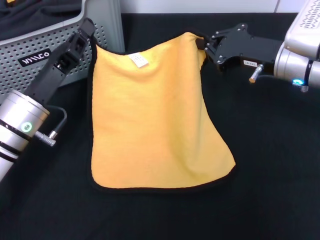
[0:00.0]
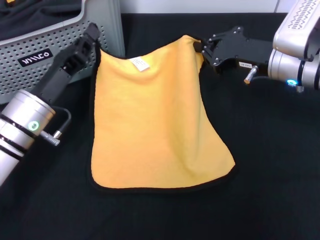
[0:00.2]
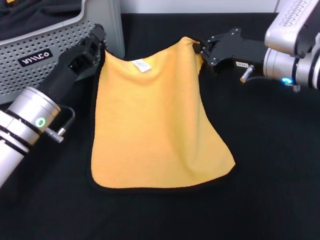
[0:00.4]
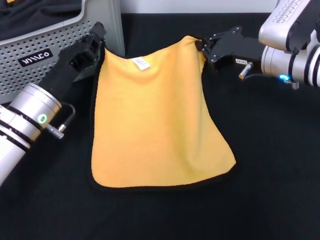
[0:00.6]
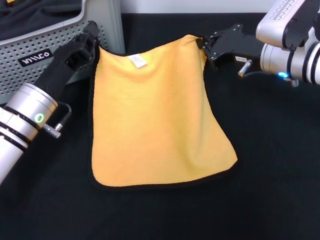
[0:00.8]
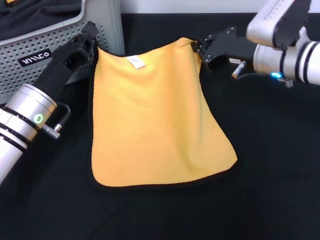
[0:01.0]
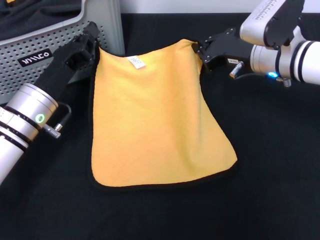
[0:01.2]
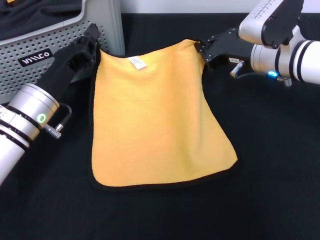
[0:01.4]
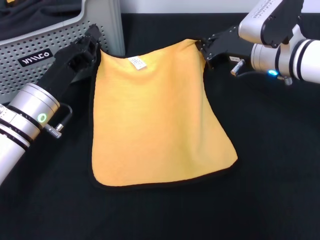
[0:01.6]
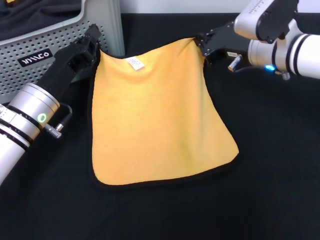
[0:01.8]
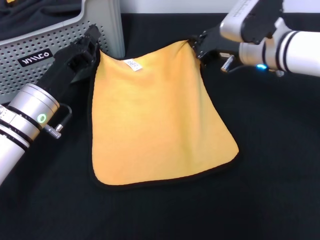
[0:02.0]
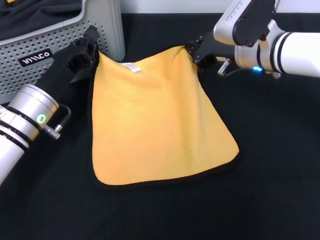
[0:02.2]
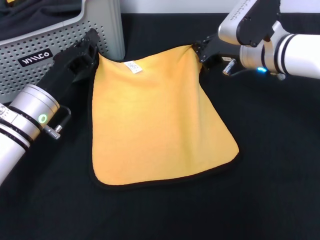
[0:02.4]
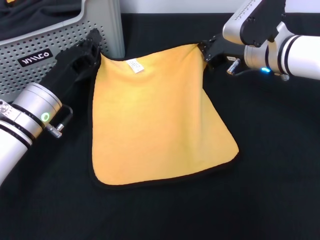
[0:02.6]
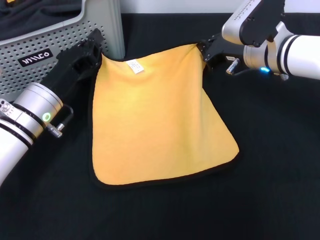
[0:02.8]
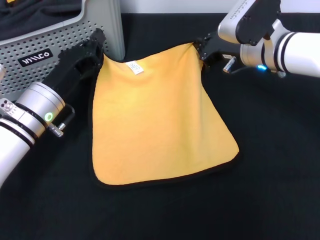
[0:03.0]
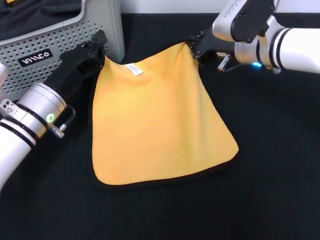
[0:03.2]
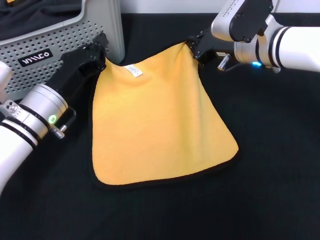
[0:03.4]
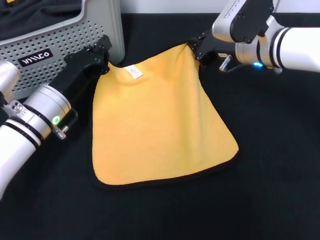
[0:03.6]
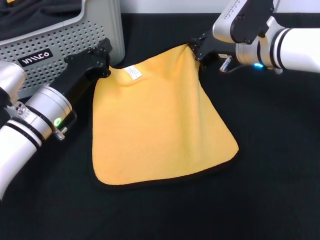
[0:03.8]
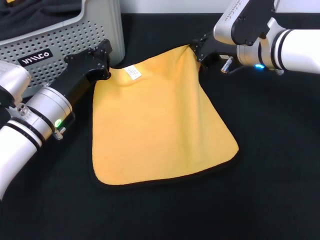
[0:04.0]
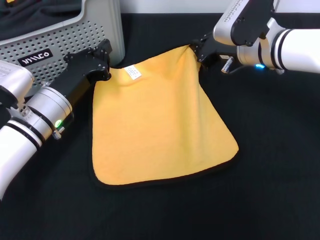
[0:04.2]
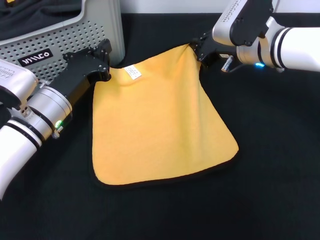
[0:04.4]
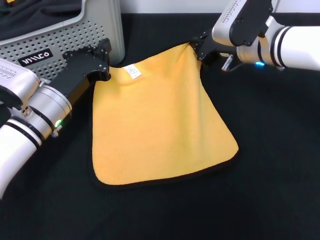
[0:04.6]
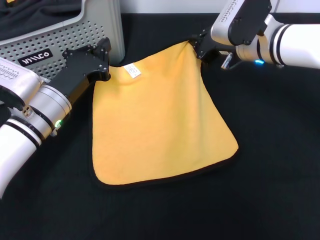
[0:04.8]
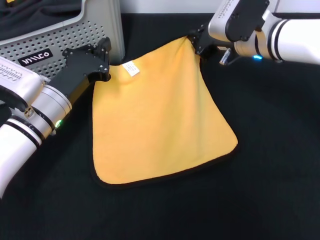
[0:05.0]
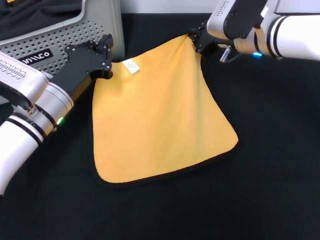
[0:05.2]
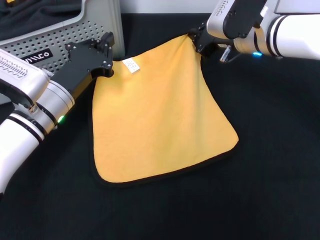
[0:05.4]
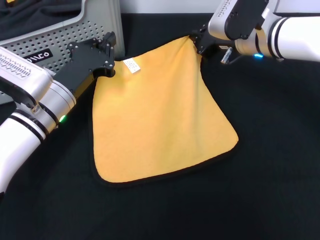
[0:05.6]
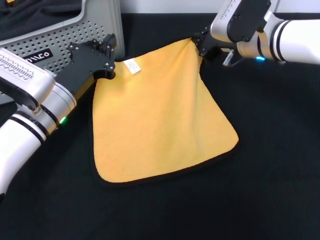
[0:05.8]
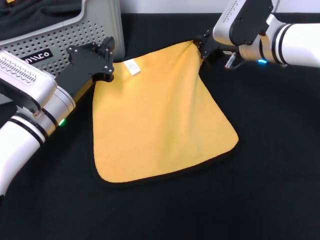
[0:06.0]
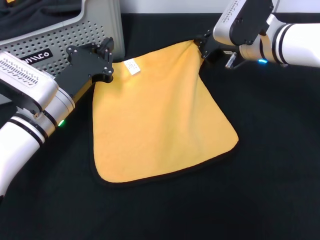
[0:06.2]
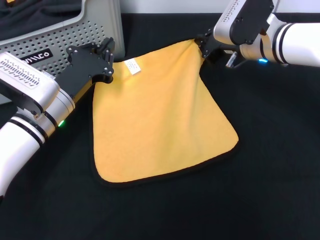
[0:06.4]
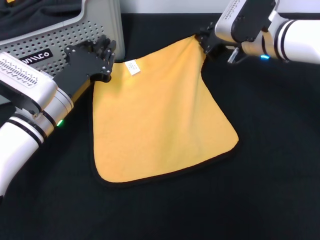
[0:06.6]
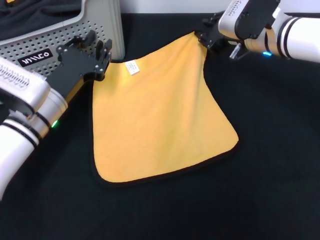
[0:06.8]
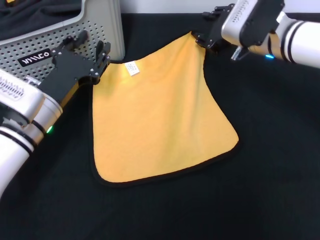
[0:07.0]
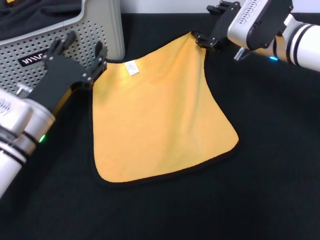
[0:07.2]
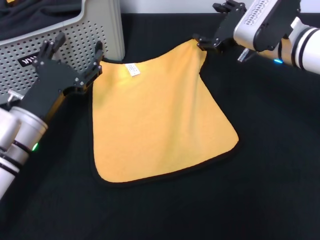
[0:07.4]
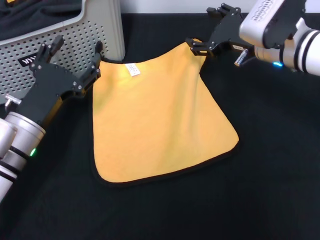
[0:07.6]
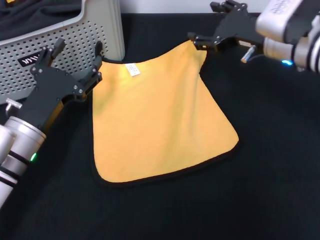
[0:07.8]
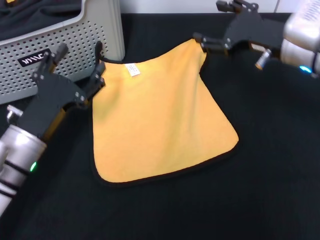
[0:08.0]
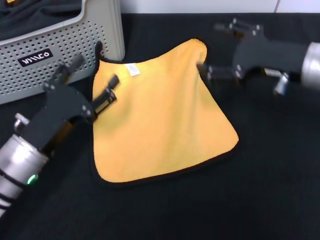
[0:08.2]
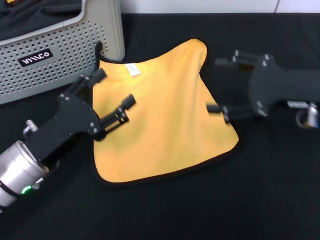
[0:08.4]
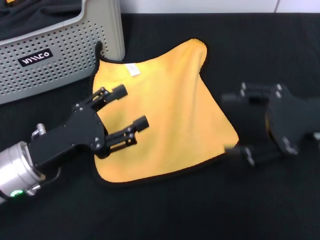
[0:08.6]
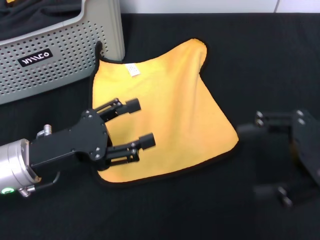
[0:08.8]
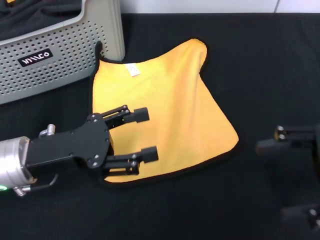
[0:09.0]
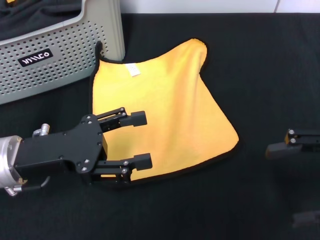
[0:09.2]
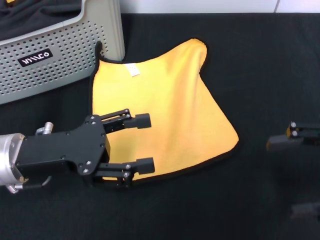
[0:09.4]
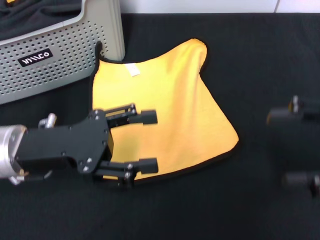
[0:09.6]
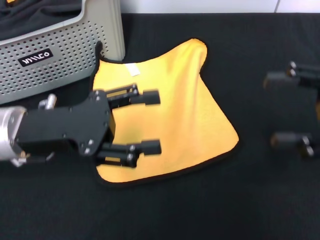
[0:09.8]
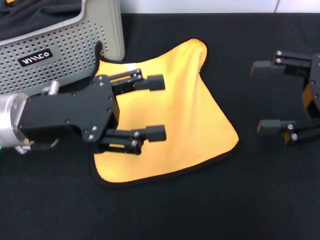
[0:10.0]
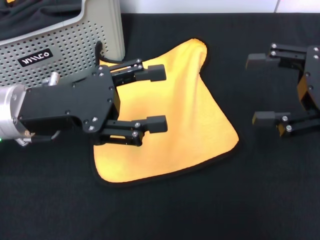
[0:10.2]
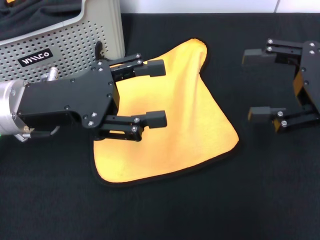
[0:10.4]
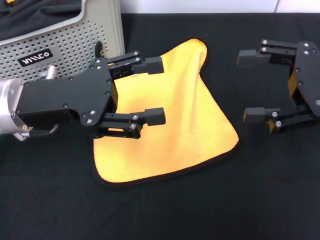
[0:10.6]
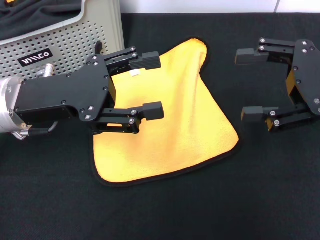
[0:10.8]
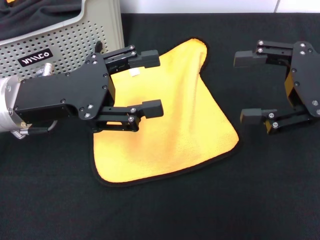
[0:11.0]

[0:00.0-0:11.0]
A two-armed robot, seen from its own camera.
Task of the whole recording: pick up the towel from the storage box and lay it flat on the black tablecloth.
Step, 0:00.0 to 0:06.8: Spread the towel flat with the right gripper.
0:00.0 to 0:01.6: The grippers stay close to where they were, moving slightly.
0:01.6 to 0:03.2: The grippers stay close to where they were, moving slightly.
0:04.8 to 0:06.2: The grippers stay close to where they were, moving slightly.
0:06.2 to 0:07.8: The right gripper ends up approximately 5 cm from where it was, and opens; the left gripper shifts roughly 5 cm backward, and opens.
0:07.8 to 0:09.4: The right gripper goes about 20 cm backward and to the right; the left gripper shifts about 5 cm upward.
0:09.4 to 0:11.0: The left gripper moves some 5 cm. The right gripper goes about 5 cm forward.
